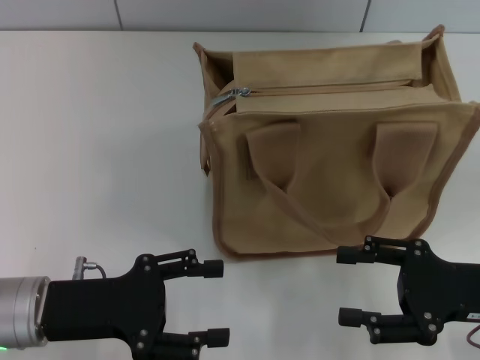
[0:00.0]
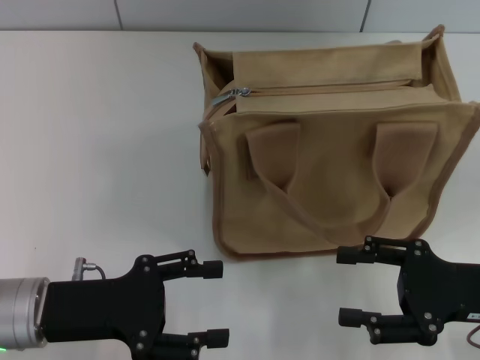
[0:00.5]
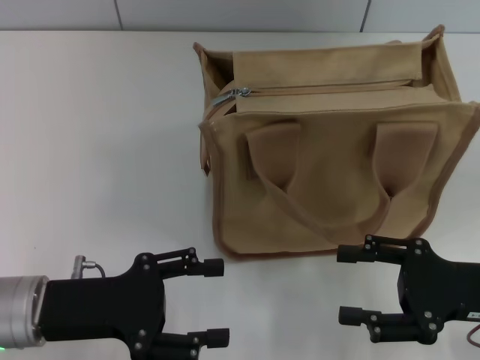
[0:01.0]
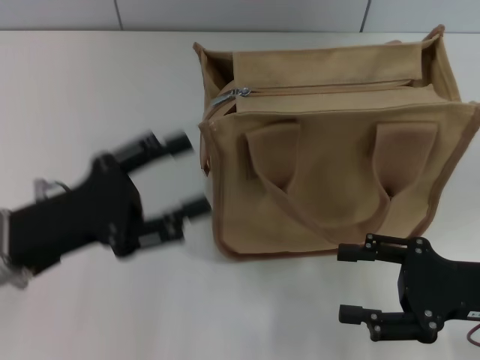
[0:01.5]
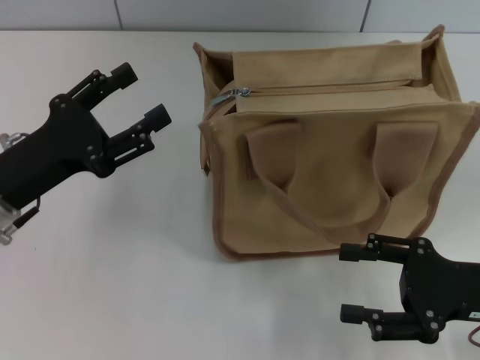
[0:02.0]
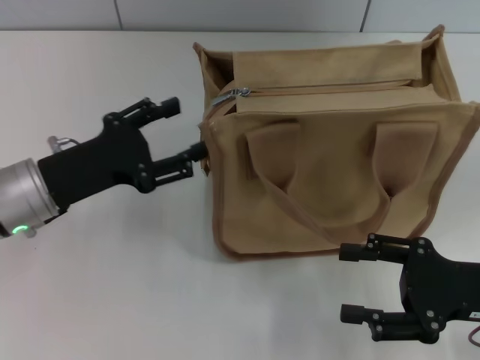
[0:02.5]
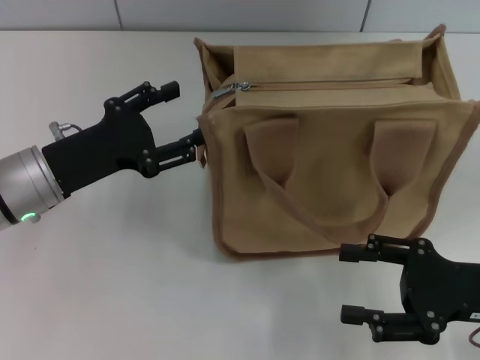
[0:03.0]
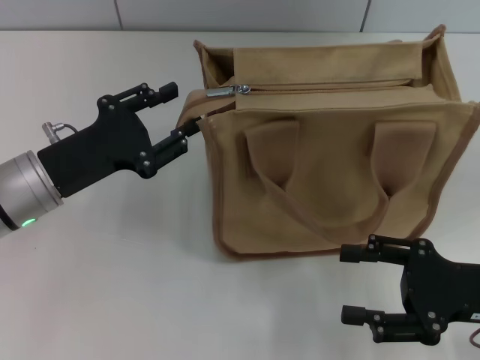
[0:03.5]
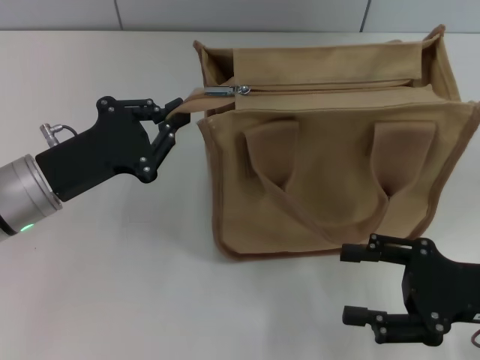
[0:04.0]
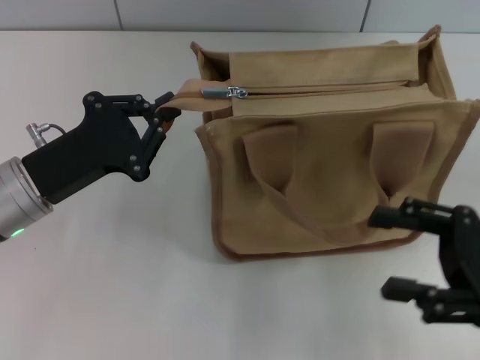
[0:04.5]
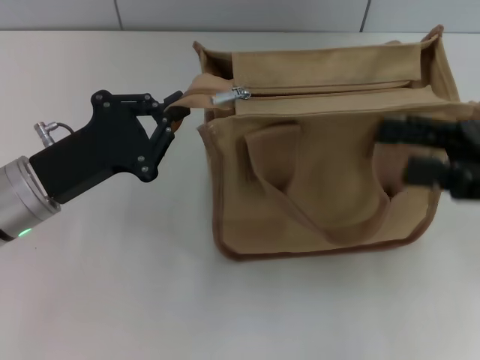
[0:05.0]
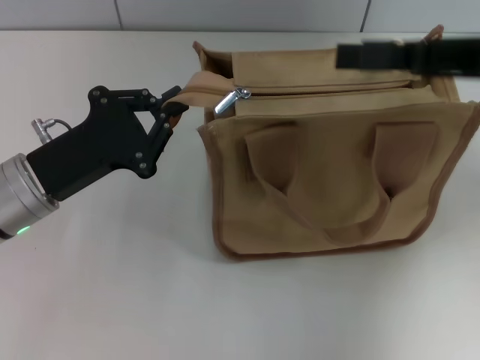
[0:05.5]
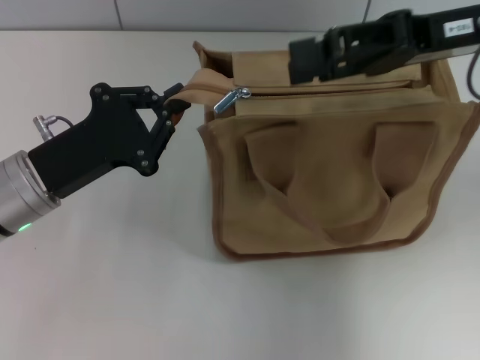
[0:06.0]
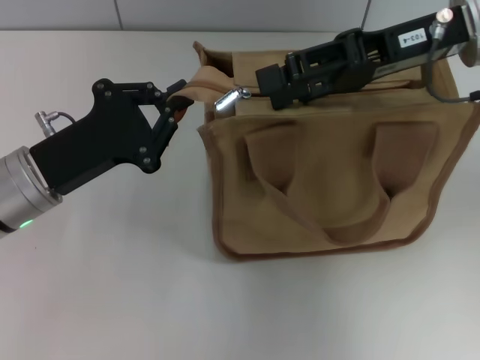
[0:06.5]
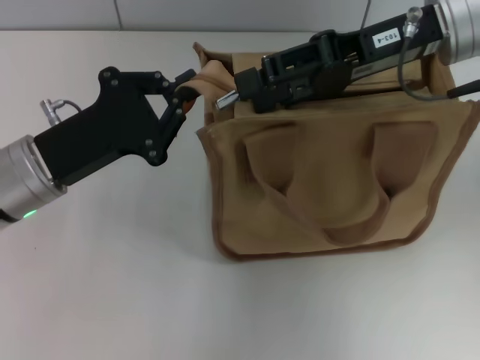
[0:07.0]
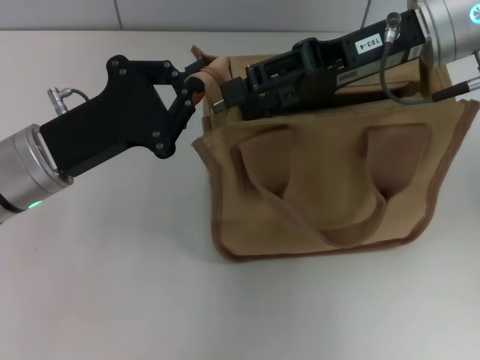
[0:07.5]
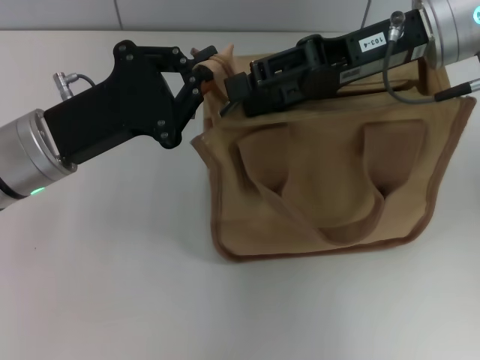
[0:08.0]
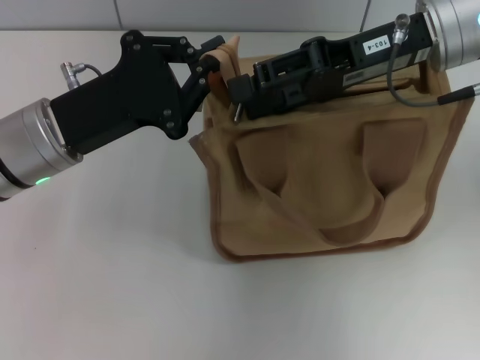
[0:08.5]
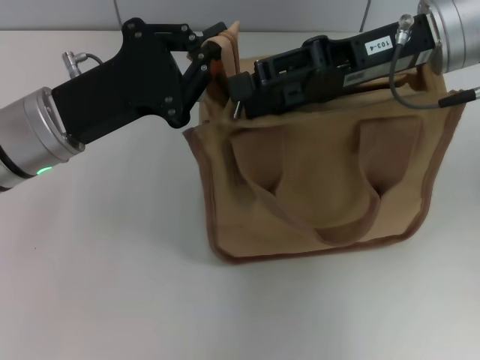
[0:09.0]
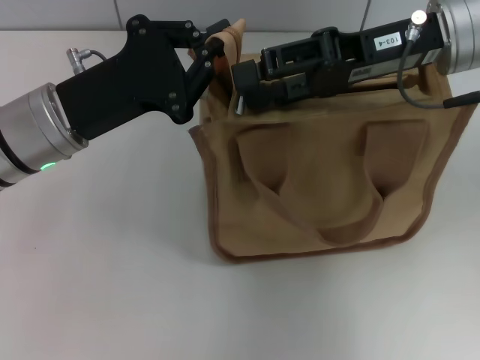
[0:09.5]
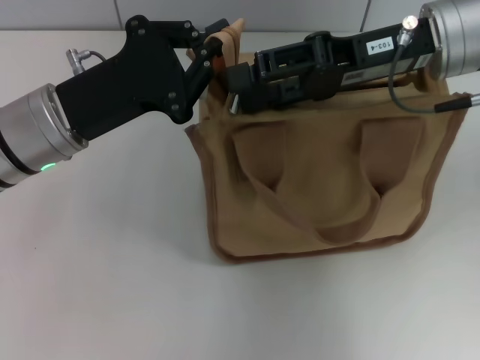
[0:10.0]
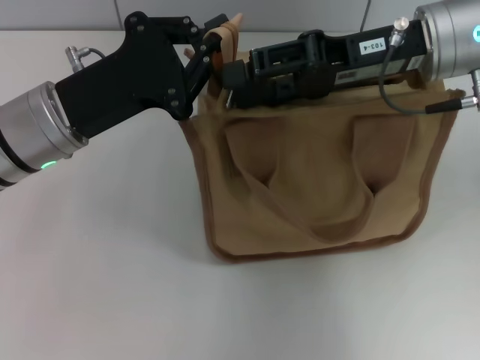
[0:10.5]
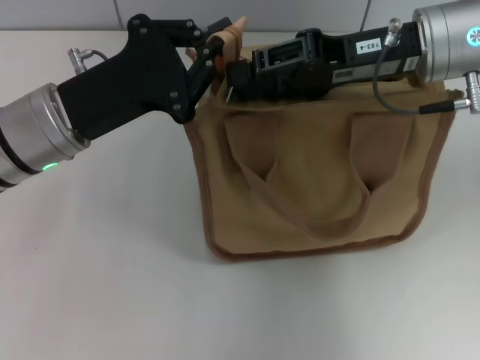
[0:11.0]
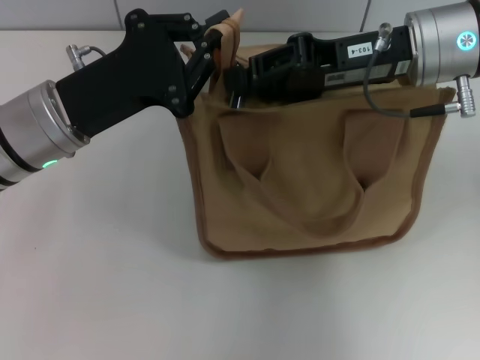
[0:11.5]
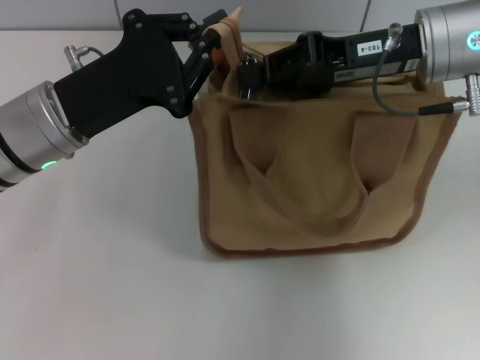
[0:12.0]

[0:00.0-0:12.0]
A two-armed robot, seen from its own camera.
0.0 to 2.0 s: The left gripper heads forward, covering some 5 cm.
2.0 to 4.0 s: The left gripper closes up.
4.0 to 6.0 s: The right gripper heads upward and forward, covering some 25 cm.
6.0 to 8.0 s: The right gripper heads to the left, covering some 5 cm.
8.0 to 10.0 s: The grippers make only small movements.
10.0 to 12.0 s: The right gripper closes up.

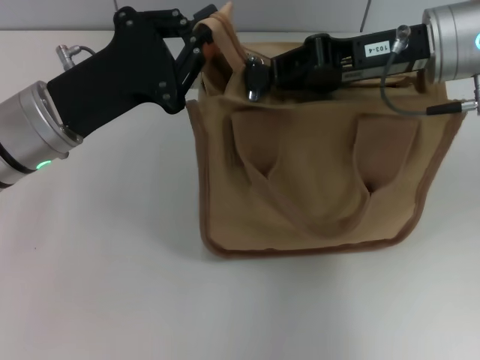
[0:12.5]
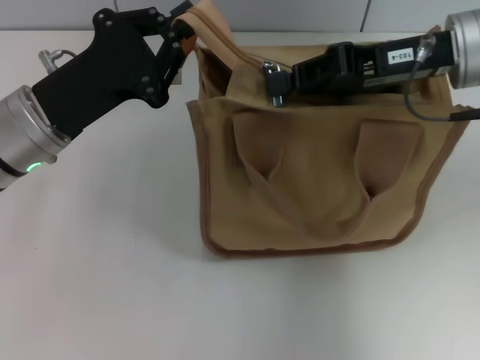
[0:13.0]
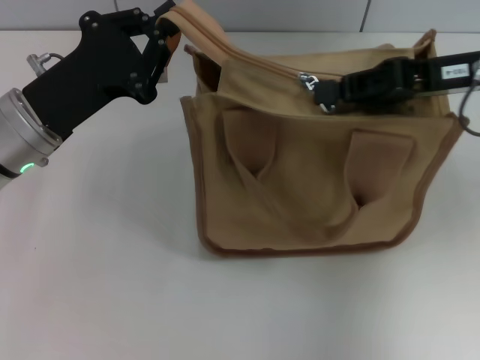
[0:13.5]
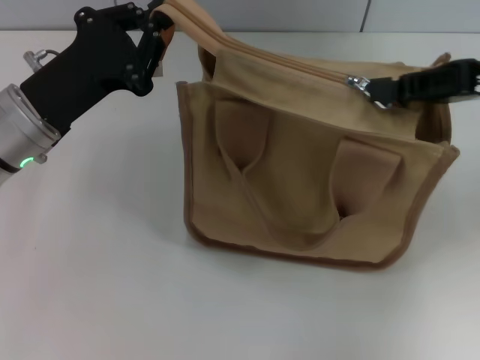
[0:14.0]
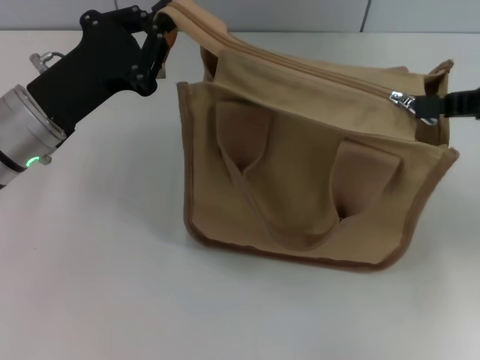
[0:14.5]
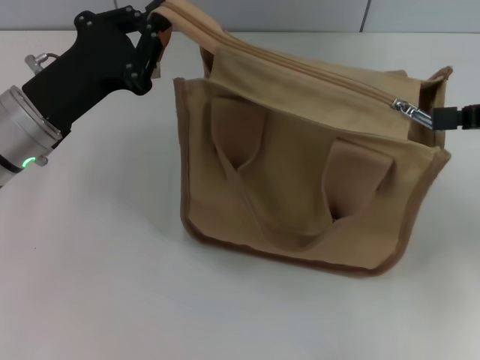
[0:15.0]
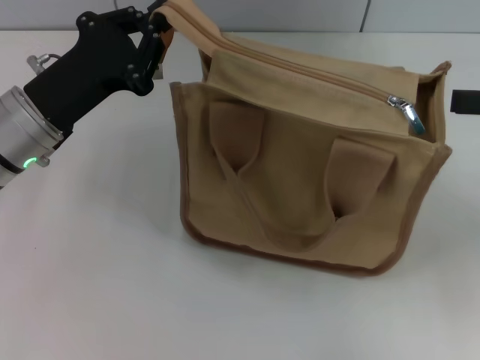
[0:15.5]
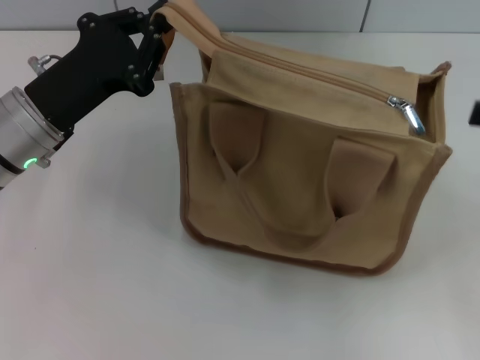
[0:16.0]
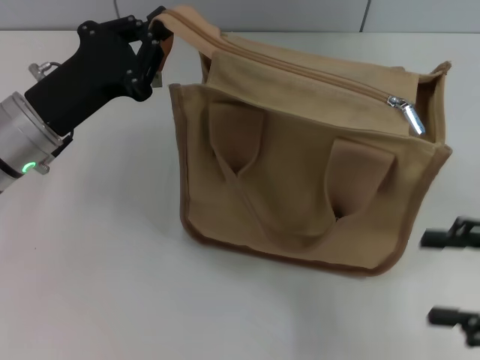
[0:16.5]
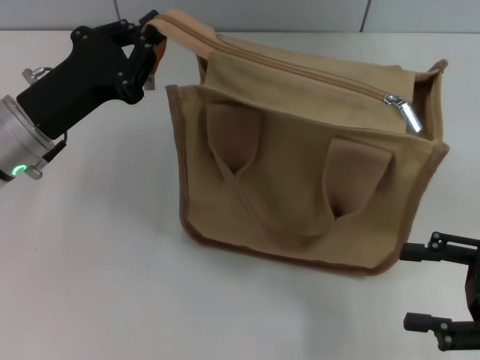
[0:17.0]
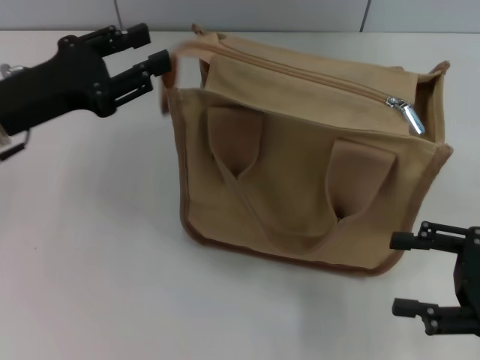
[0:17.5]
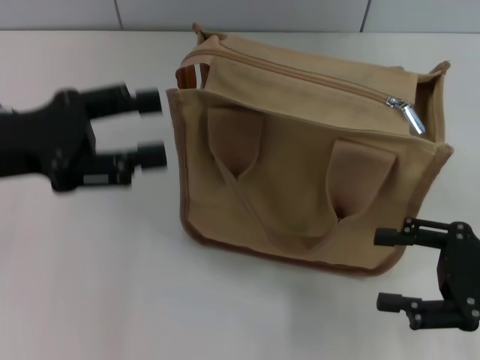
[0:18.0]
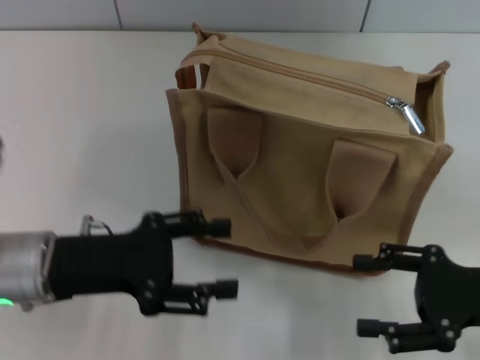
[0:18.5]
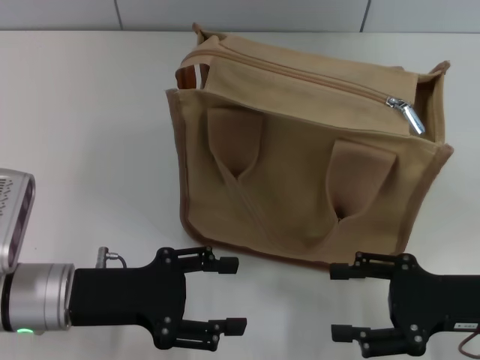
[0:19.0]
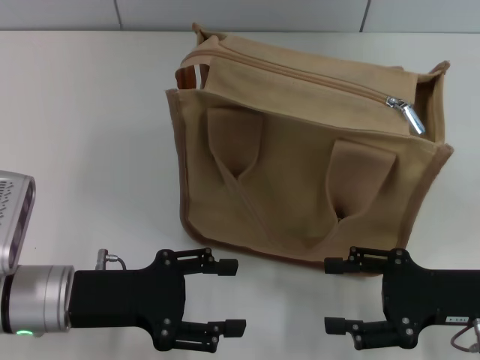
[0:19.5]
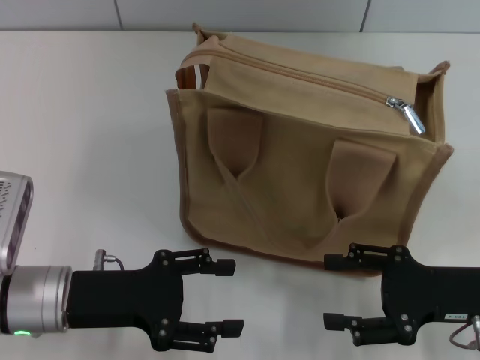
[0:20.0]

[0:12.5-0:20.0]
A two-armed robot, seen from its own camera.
Step, 12.5 to 15.0 s: Pull up the zipper with your right hand.
Step, 15.5 to 17.5 s: Grab the zipper with your left hand.
12.5 to 14.5 s: The right gripper is displaced to the right by some 15 cm.
14.5 to 16.5 s: The right gripper moves backward and downward, approximately 15 cm, and opens.
16.5 to 18.0 s: The left gripper goes some 10 cm upward and to the left, and opens.
18.0 to 20.0 s: The left gripper travels downward, backward and to the right by approximately 15 cm. Meanwhile the right gripper changes place by some 5 cm.

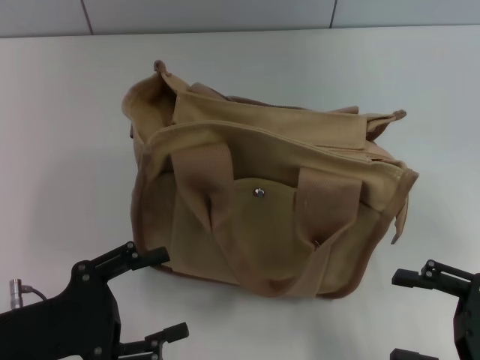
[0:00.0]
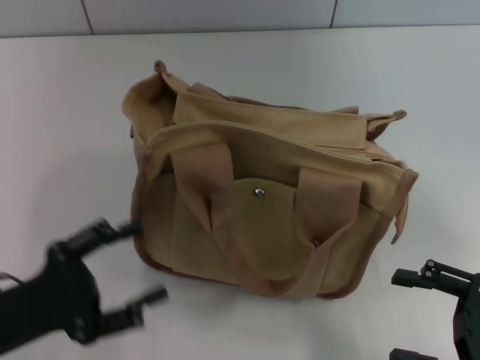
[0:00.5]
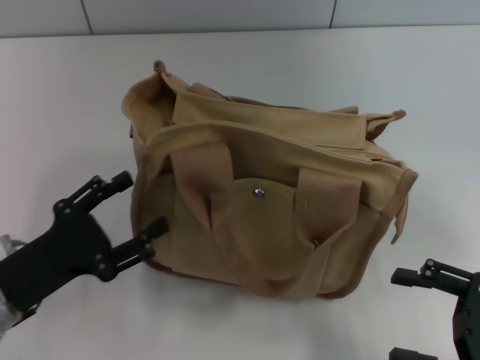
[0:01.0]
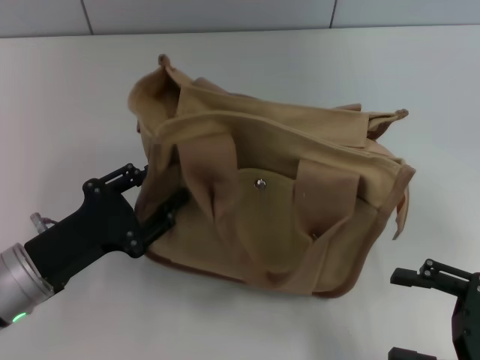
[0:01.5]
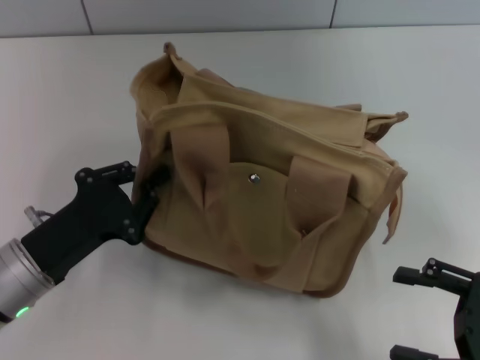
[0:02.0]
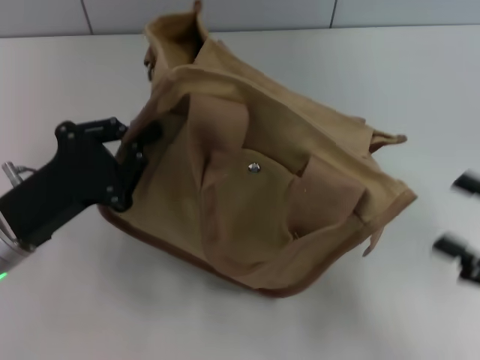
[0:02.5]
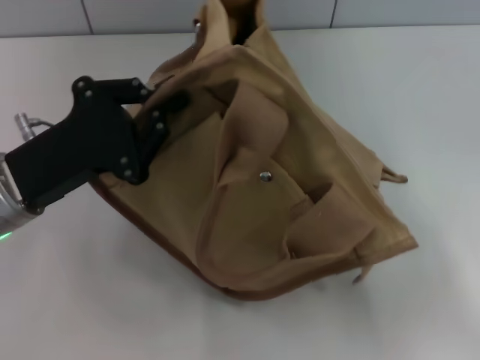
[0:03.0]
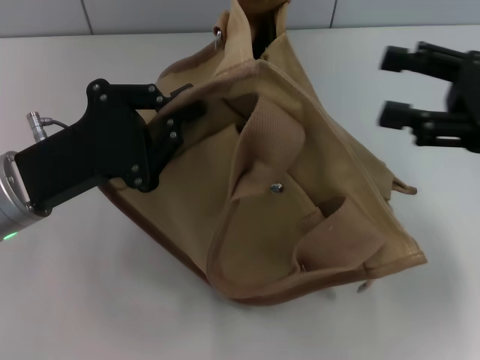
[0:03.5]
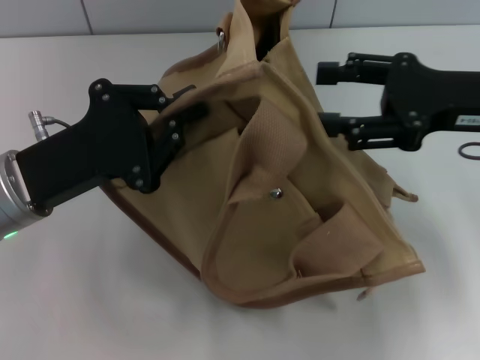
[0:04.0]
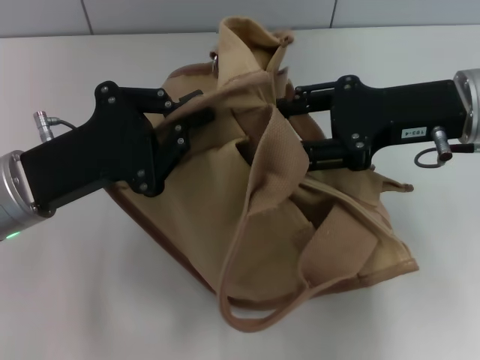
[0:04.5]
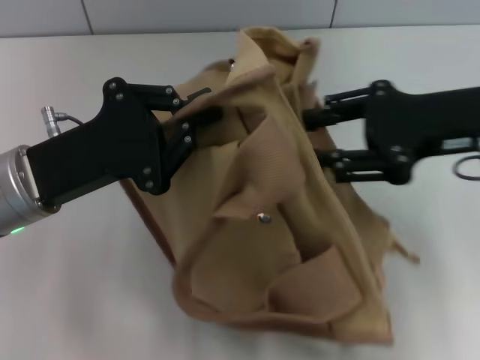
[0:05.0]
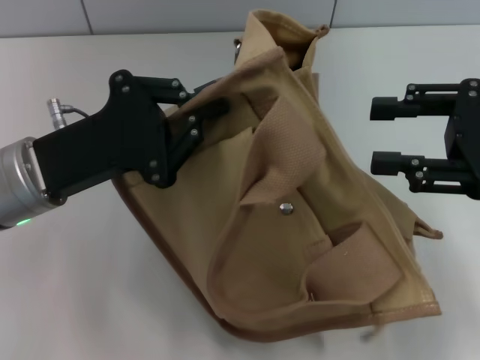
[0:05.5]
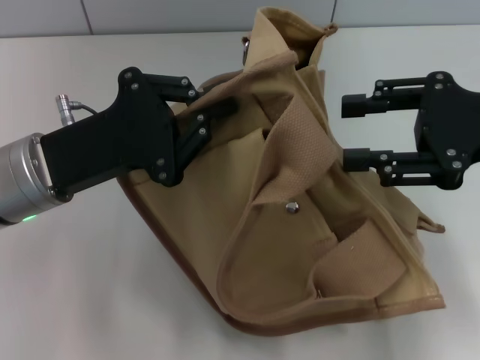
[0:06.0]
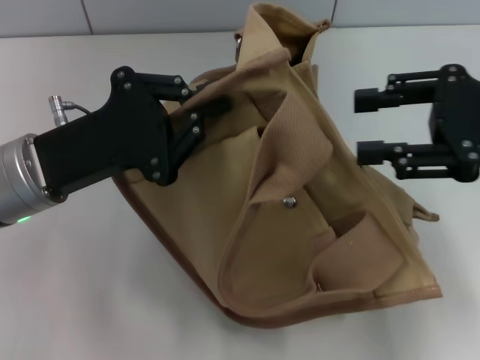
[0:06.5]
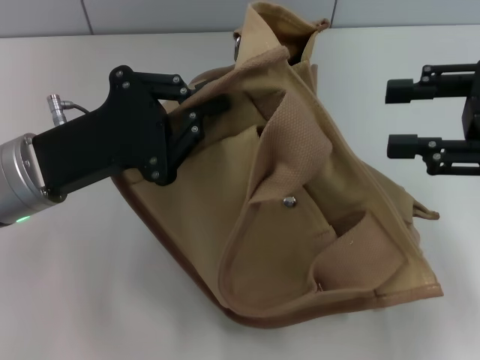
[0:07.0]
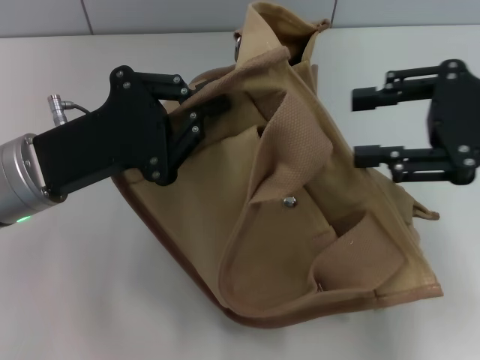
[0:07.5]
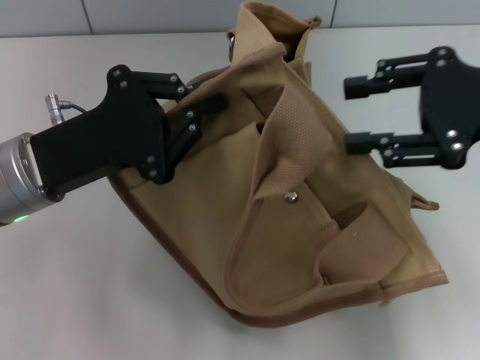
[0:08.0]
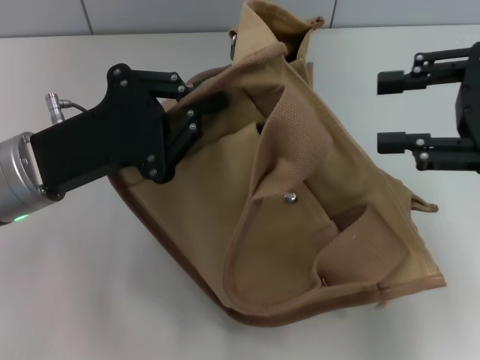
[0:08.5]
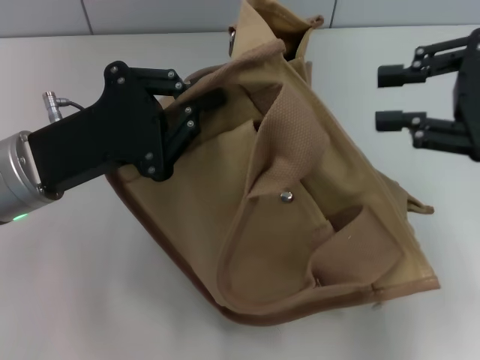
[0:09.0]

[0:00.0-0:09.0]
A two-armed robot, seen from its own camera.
0.0 to 2.0 s: The left gripper is displaced forward by approximately 5 cm, and closes up.
2.0 to 4.5 s: The left gripper moves upward and forward, some 10 cm, while the right gripper heads forward, upward and to the left, covering approximately 25 cm.
4.5 to 7.0 s: The right gripper moves to the right and backward, some 10 cm.
7.0 to 9.0 s: The grippers stay close to where they were, moving slightly.
